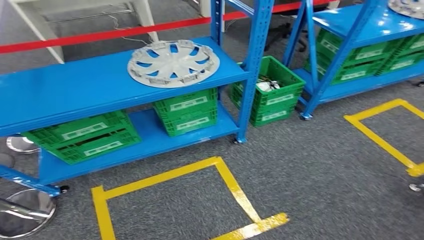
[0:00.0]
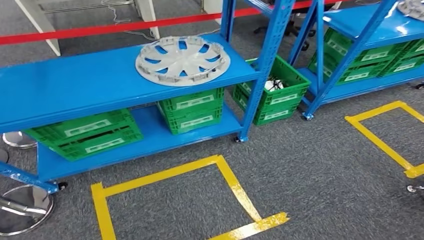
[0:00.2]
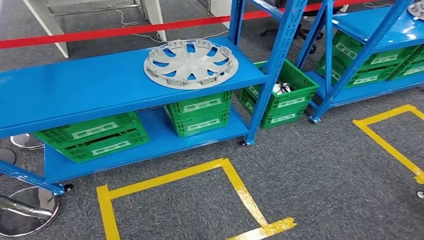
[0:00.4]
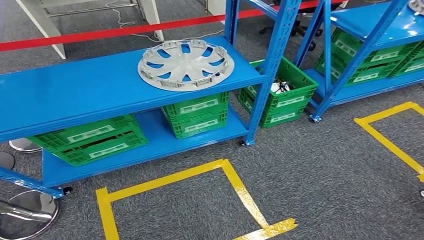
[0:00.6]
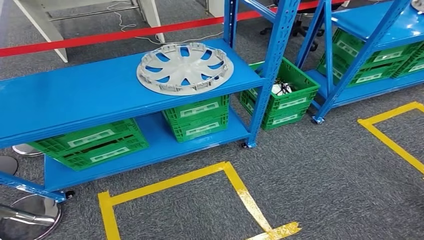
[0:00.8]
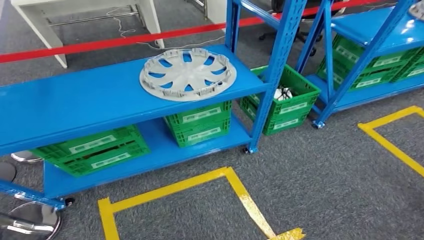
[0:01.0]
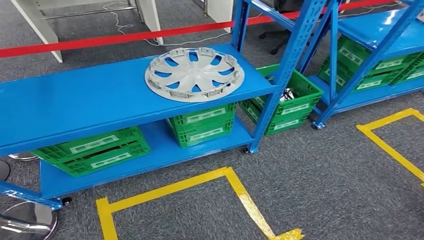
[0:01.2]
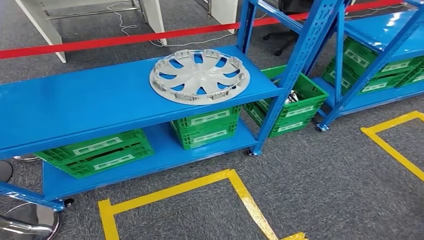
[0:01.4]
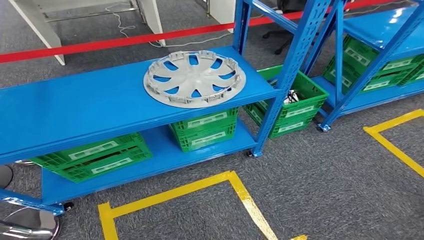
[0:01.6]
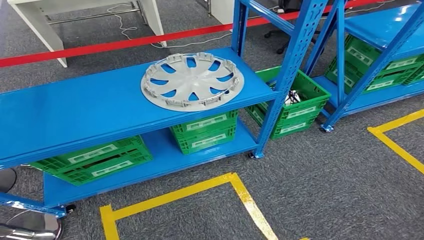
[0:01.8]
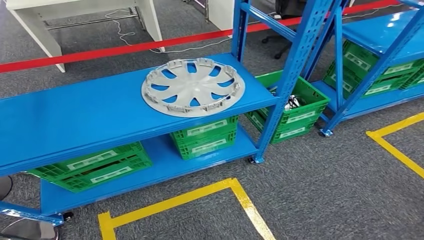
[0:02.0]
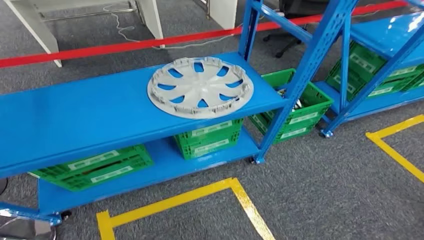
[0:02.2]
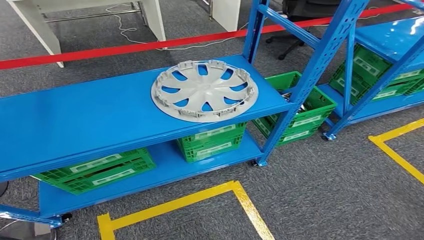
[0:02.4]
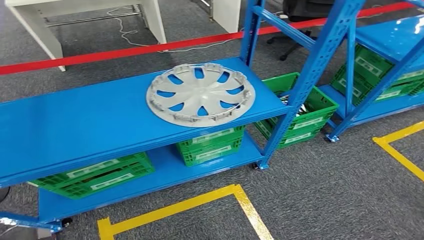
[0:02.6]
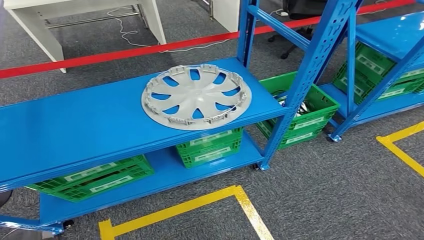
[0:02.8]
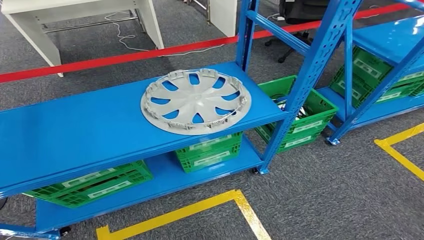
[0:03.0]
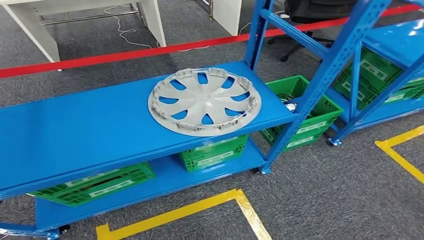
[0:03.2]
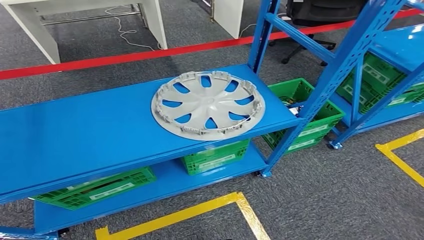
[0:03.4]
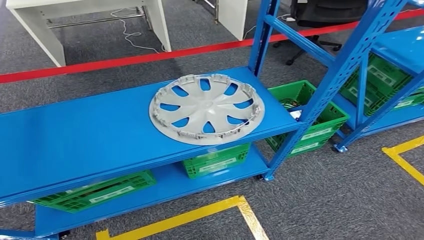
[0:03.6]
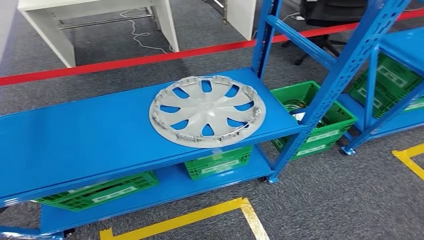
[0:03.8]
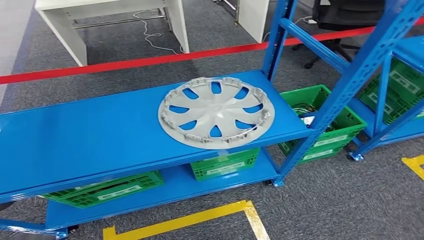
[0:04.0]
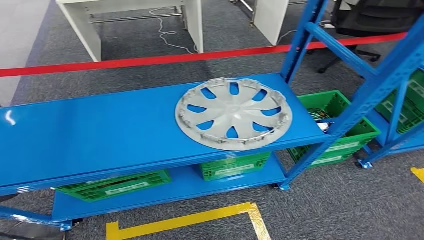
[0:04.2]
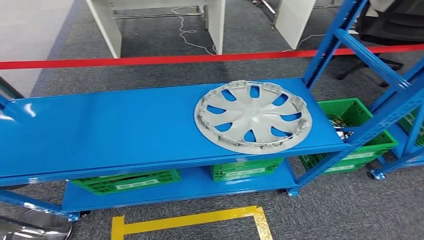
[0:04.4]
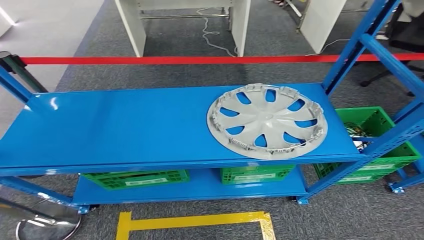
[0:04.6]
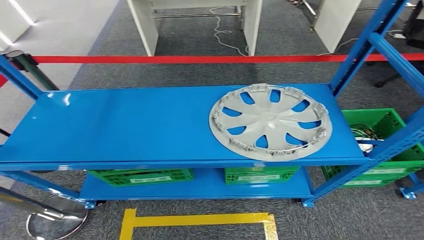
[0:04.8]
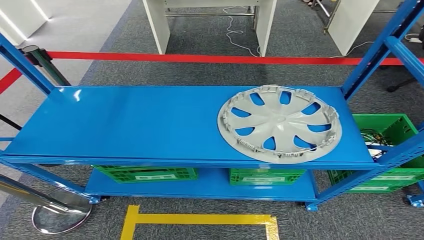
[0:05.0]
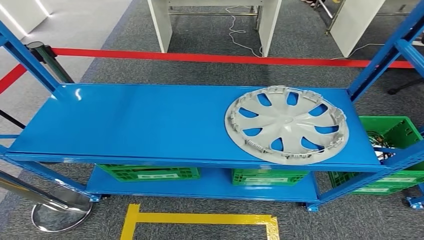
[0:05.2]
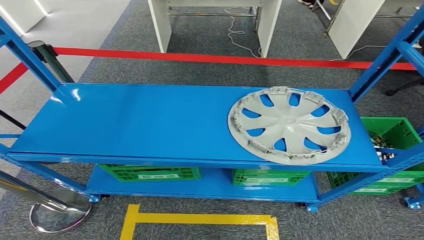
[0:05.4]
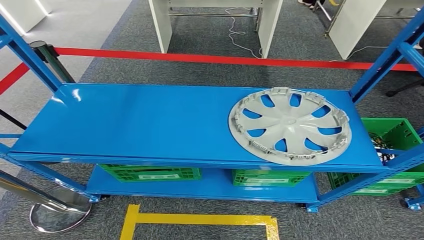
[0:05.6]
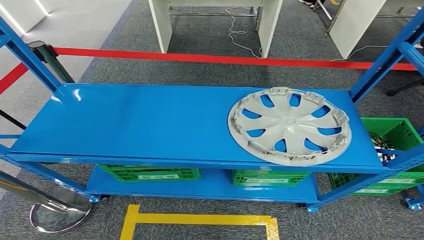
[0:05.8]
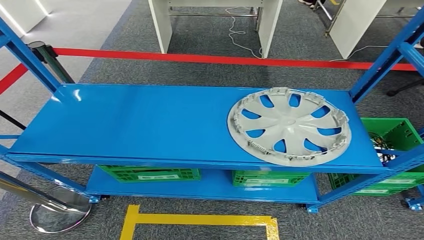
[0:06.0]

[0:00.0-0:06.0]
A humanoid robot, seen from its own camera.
Step, 0:00.0 to 0:06.0: Move to the initial position at the workbench.
